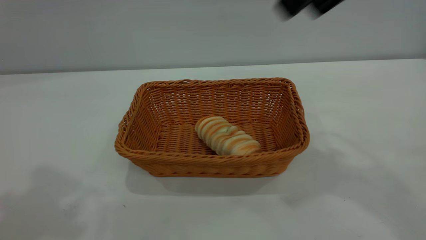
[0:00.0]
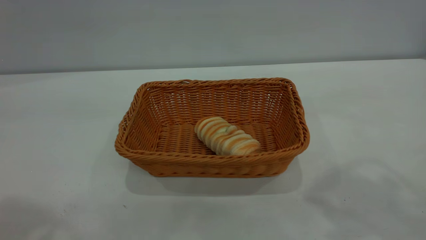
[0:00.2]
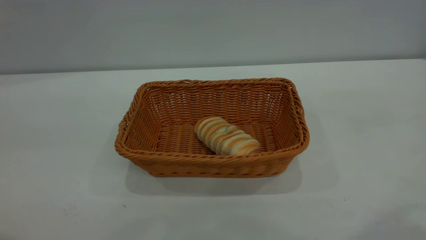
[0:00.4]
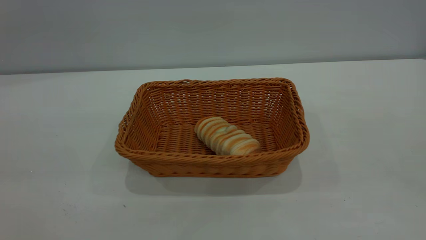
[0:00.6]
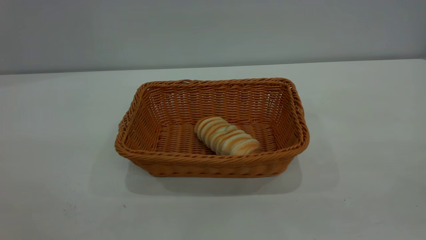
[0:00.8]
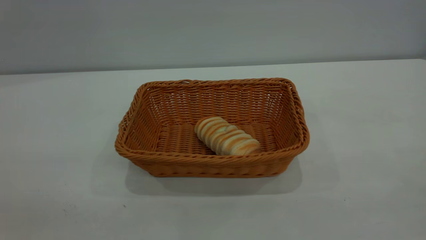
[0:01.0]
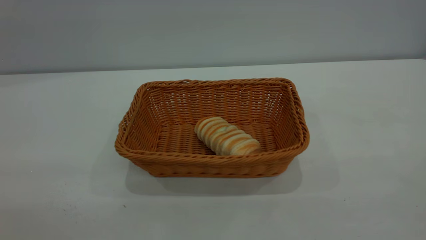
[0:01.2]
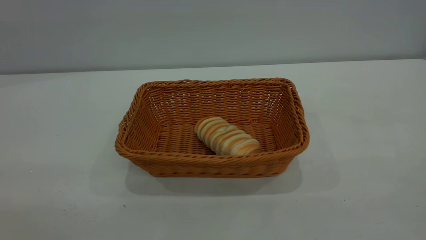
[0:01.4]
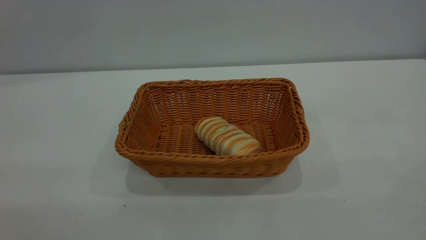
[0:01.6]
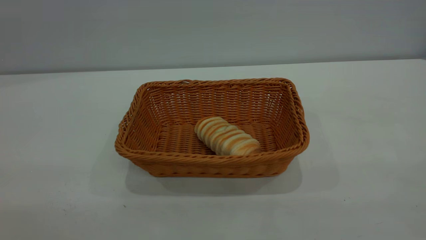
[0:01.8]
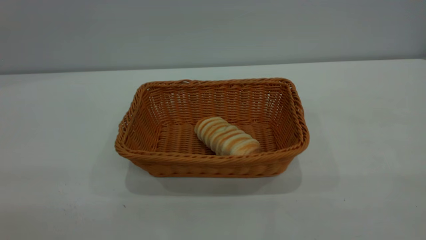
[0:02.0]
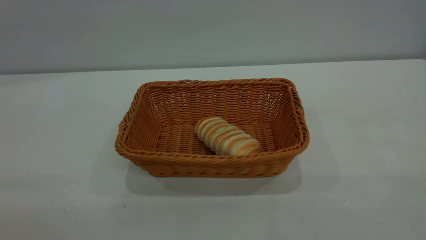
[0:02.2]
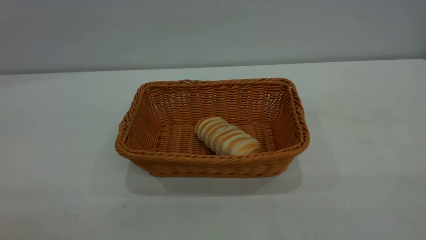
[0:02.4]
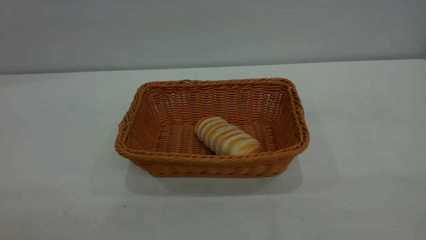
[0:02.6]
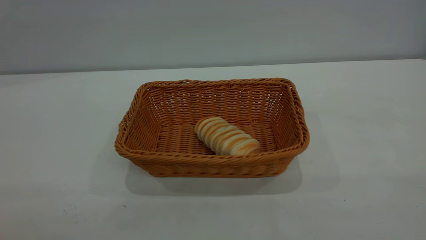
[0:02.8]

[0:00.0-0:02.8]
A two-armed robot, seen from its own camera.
Task of the whole recording: One hand grasps the yellow basket and places it in the middle of the table, while the other hand picks up the long bread and puts it into the yellow basket.
0:00.0 to 0:01.4: The right gripper heads backward, covering roughly 30 cm.
